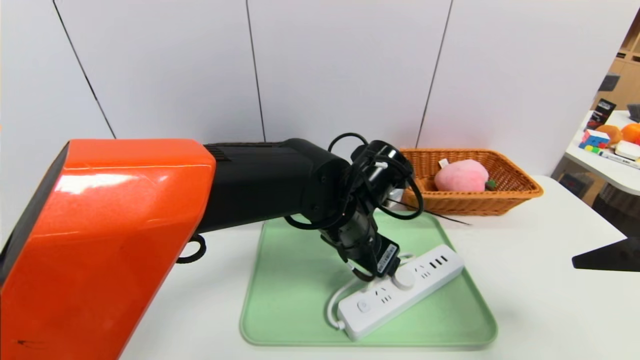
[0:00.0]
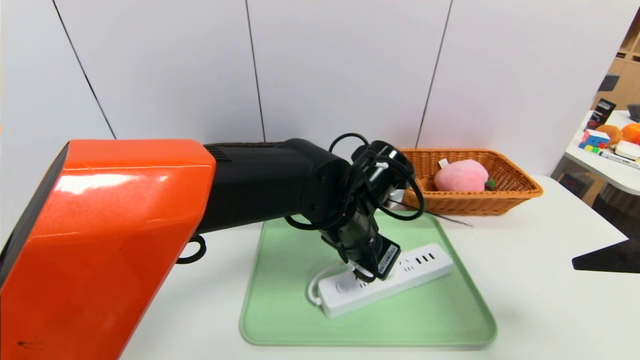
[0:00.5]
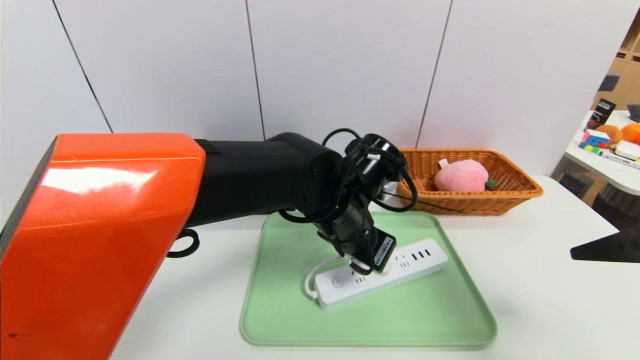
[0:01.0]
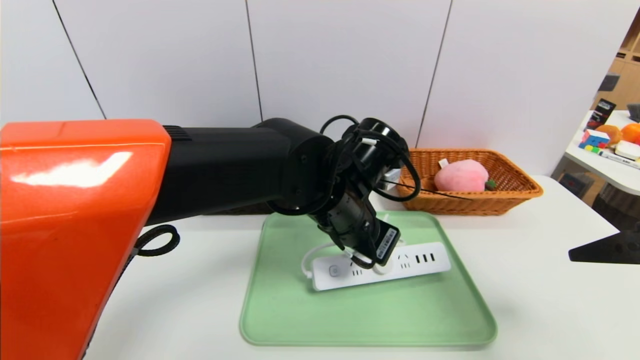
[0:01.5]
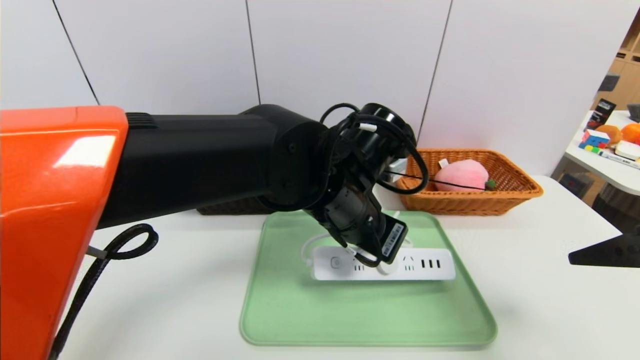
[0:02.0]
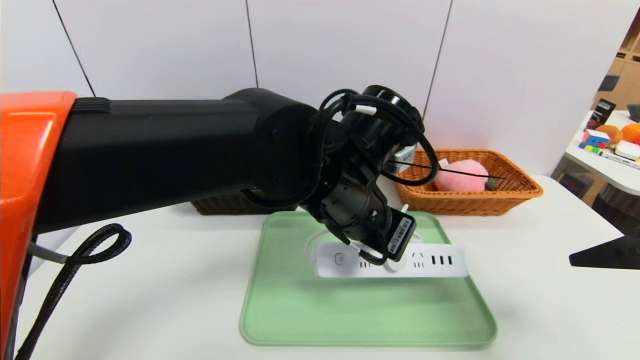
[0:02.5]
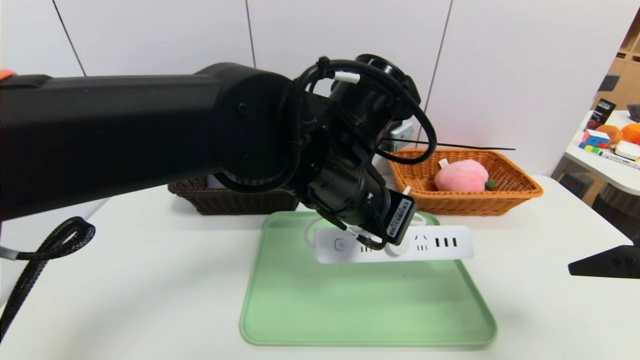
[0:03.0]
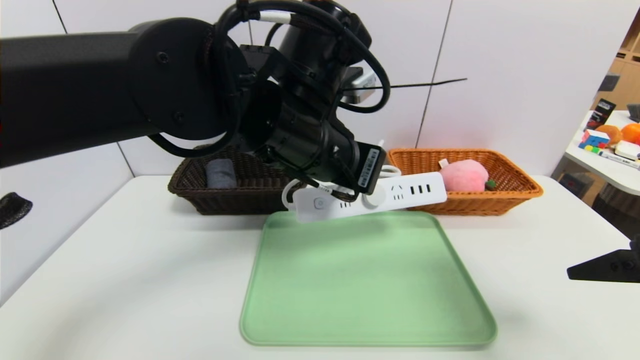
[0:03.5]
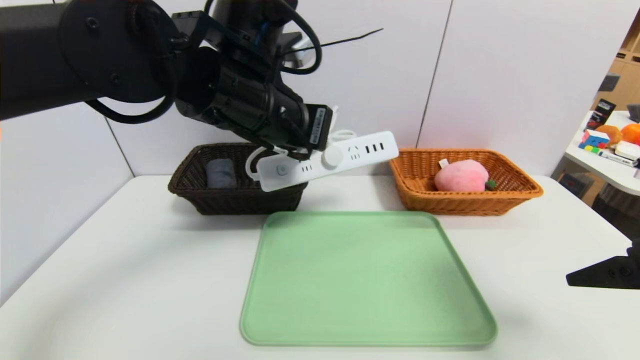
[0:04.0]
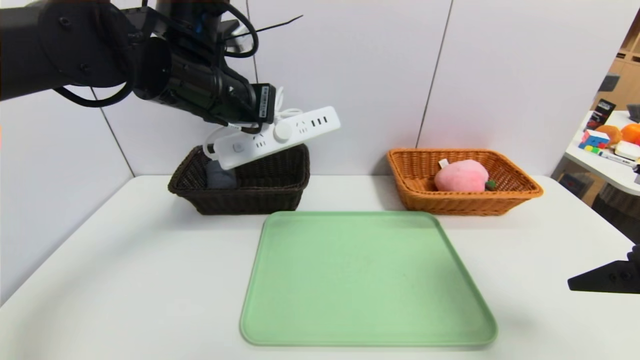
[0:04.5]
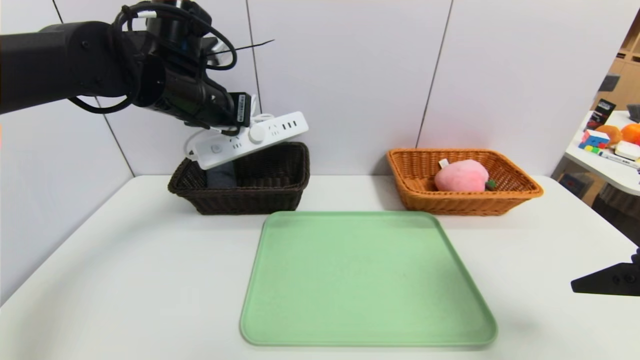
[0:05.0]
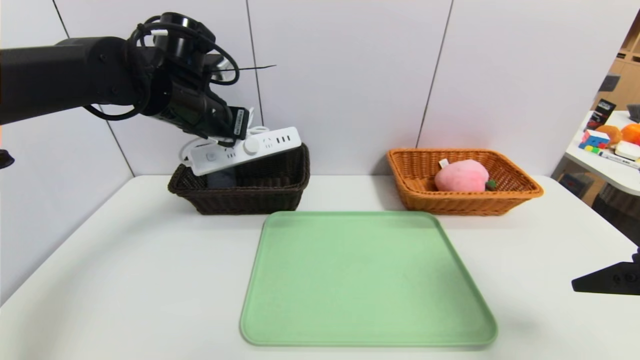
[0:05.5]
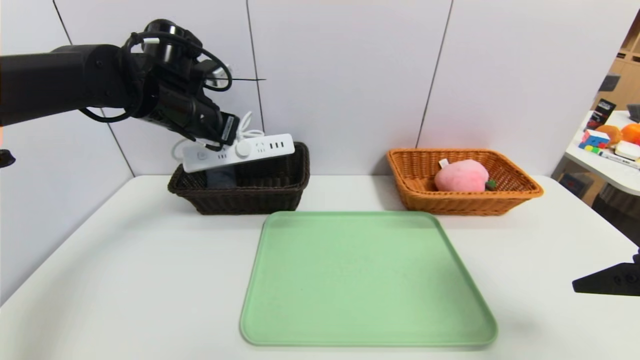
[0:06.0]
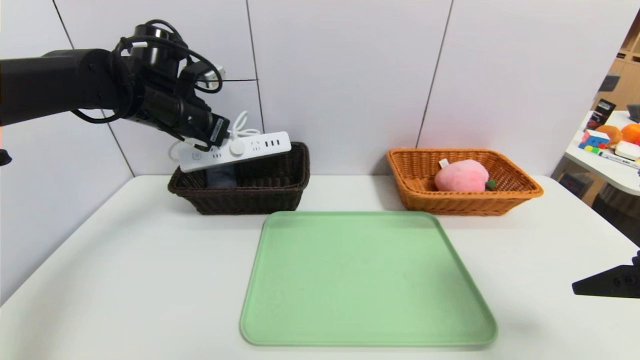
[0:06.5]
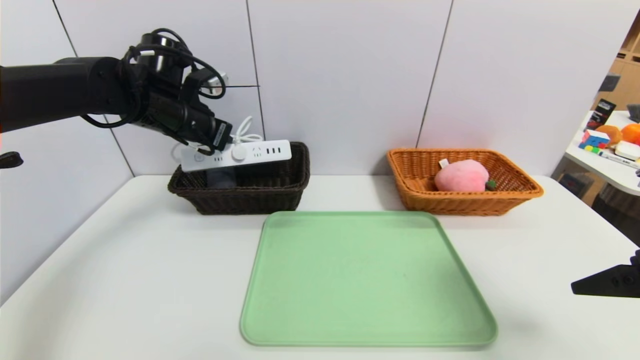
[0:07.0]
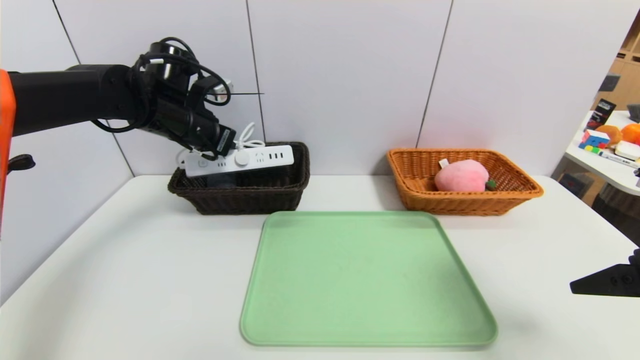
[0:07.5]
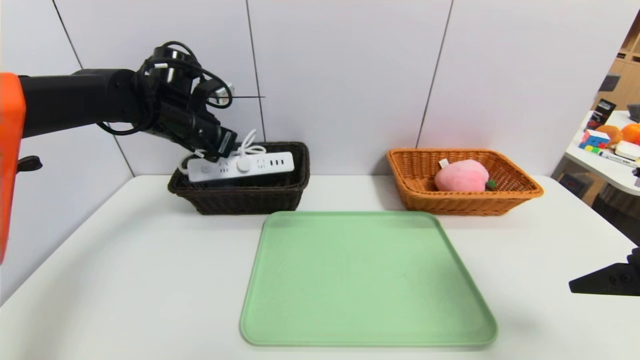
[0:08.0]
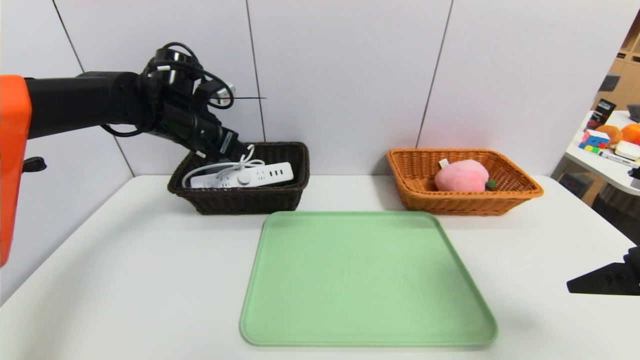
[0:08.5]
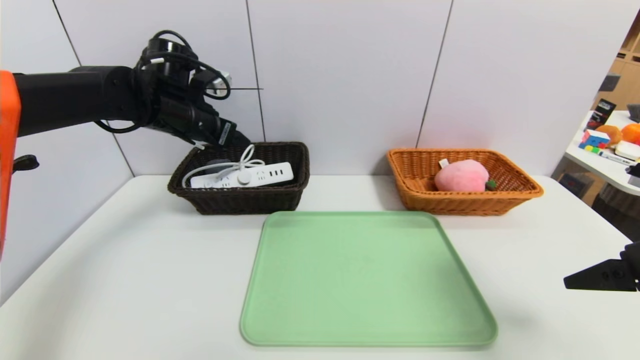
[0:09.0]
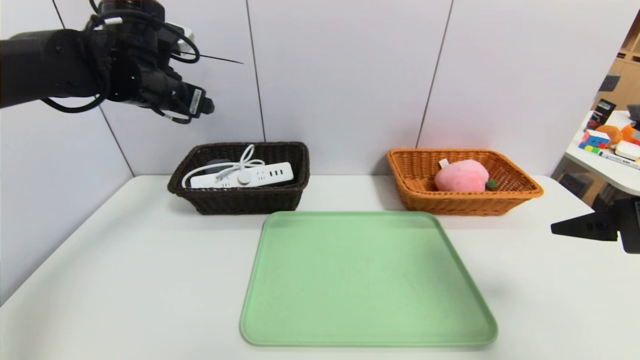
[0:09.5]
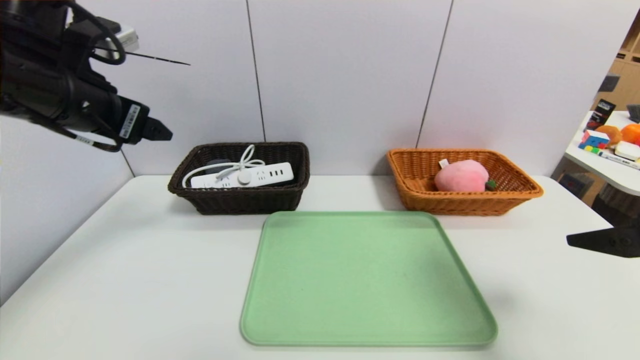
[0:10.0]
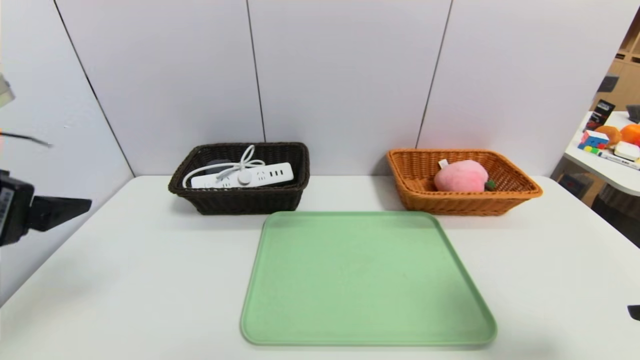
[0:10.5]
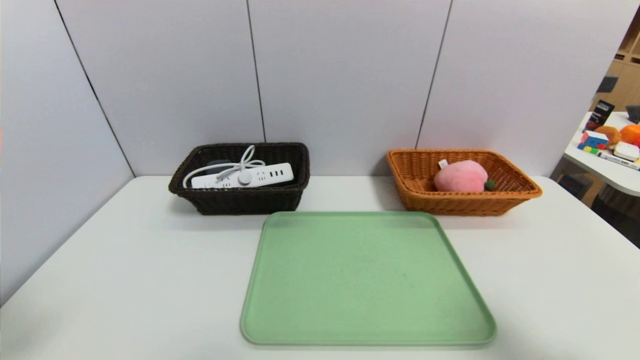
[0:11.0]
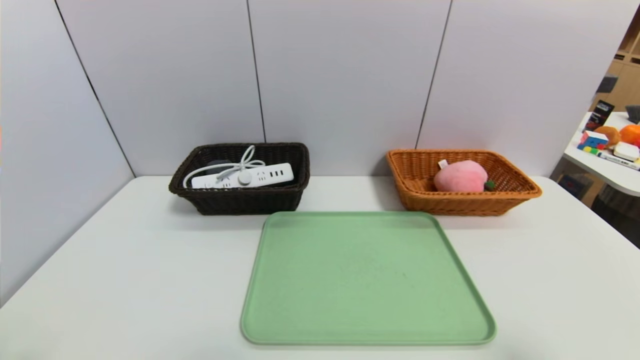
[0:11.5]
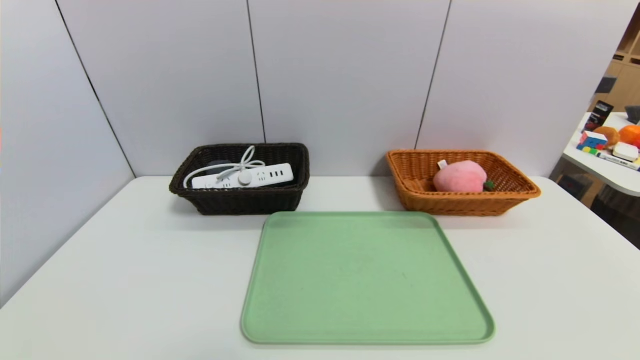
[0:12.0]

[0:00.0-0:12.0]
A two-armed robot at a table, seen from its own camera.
Task of the whole recording: place the food in the right basket with the right gripper, and place the non food items in the left basket with the left gripper.
Step, 0:00.0 to 0:08.5: Grasp the power strip and put it in the left basket.
0:00.0 to 0:02.0: The left gripper closes.
0:02.0 to 0:04.0: The left gripper shifts some 15 cm upward and to the left.
0:04.0 to 0:06.0: The left gripper travels to the left and forward by some 15 cm.
0:06.0 to 0:08.0: The grippers make only small movements.
0:08.0 to 0:10.0: The left gripper is displaced backward and upward by roughly 20 cm, and opens its fingers.
0:10.0 to 0:12.0: The right gripper travels backward by some 20 cm. The left gripper shifts roughly 35 cm backward and downward.

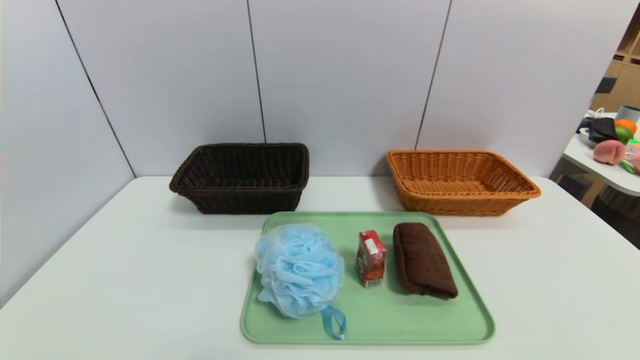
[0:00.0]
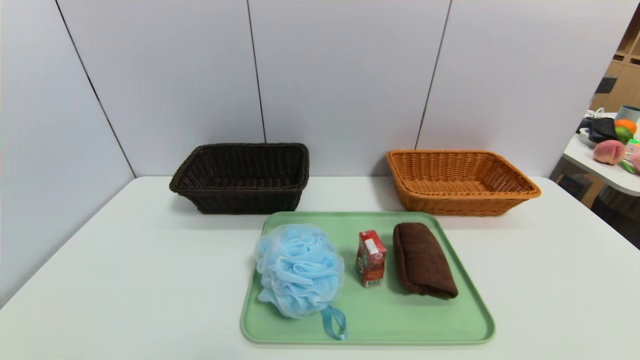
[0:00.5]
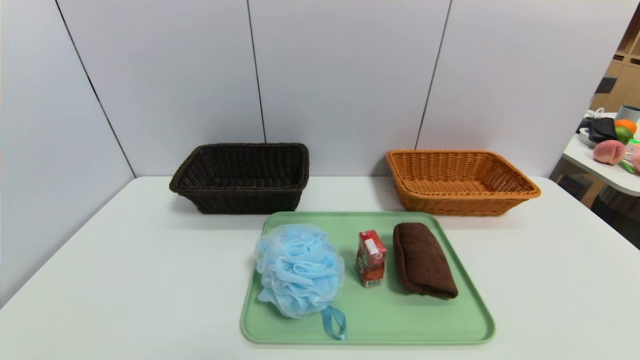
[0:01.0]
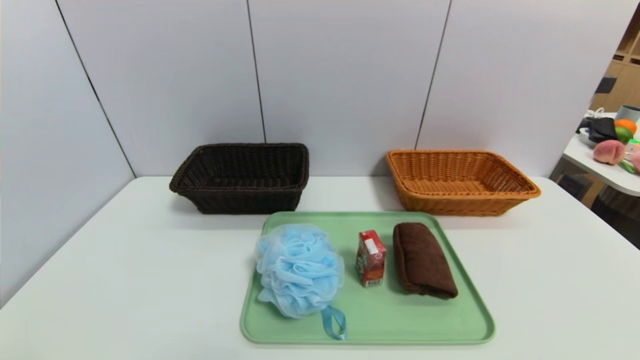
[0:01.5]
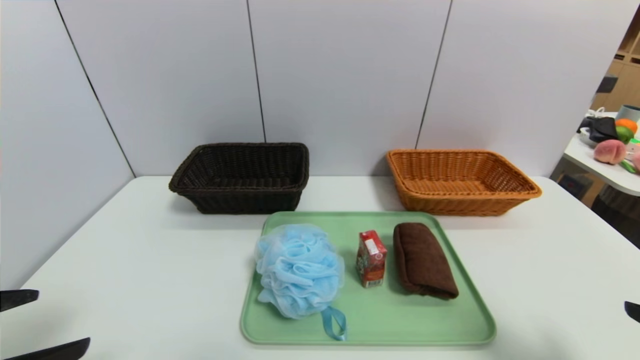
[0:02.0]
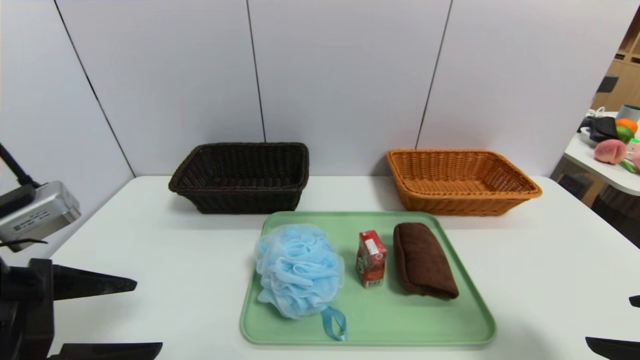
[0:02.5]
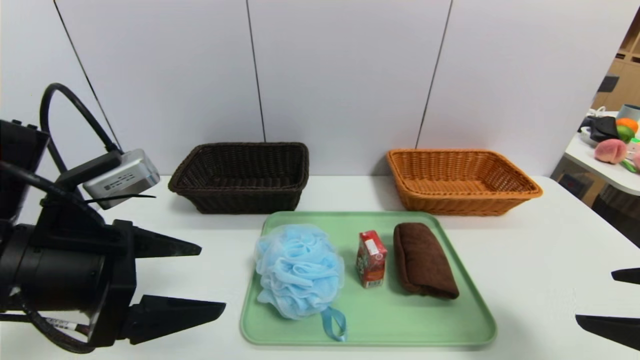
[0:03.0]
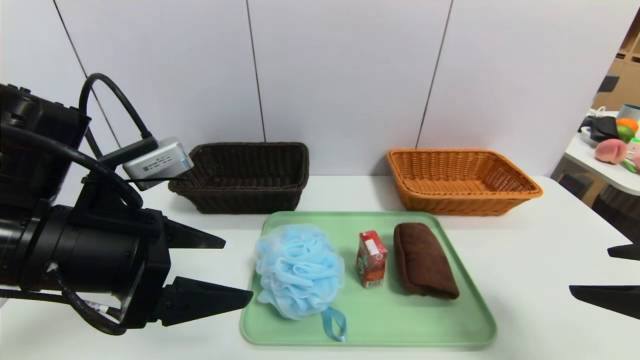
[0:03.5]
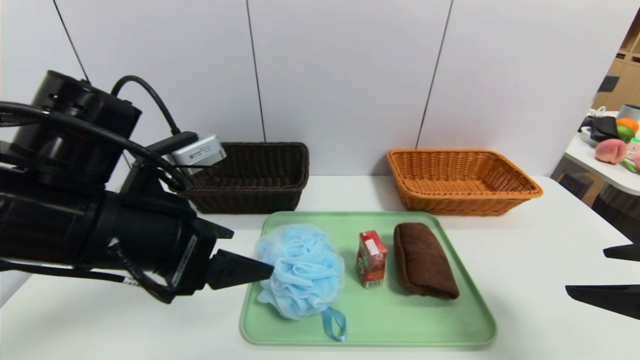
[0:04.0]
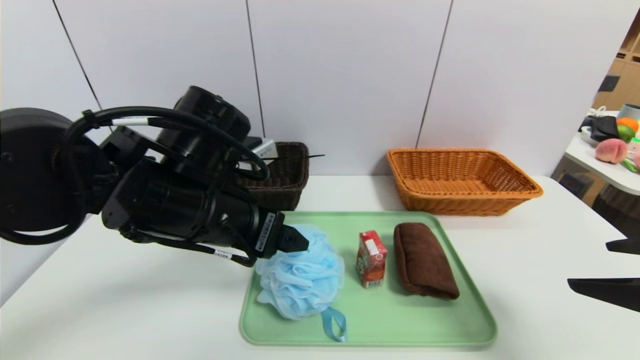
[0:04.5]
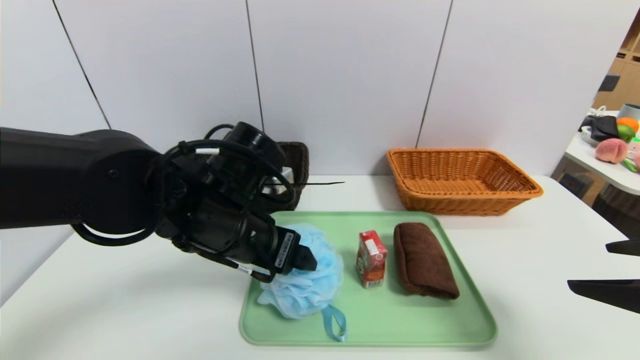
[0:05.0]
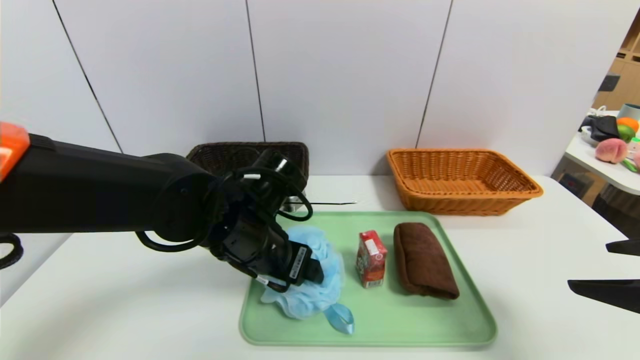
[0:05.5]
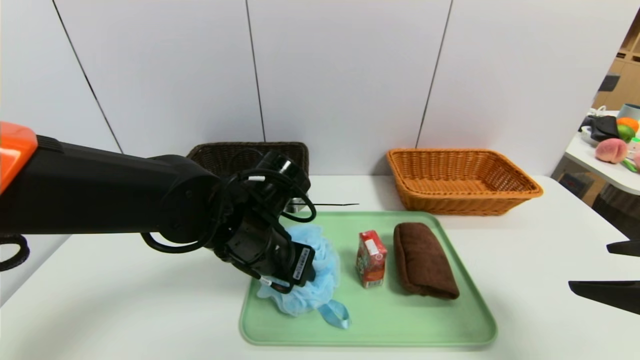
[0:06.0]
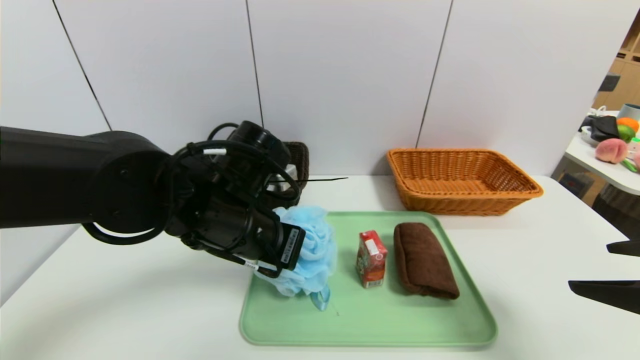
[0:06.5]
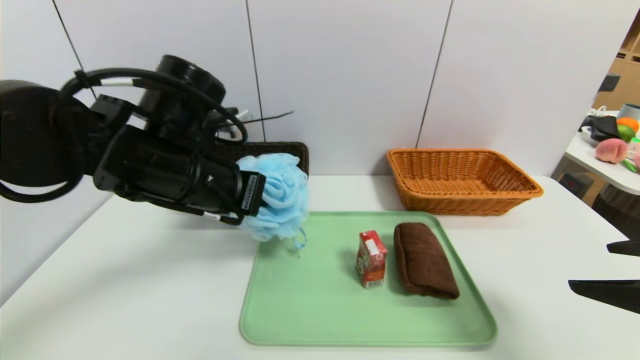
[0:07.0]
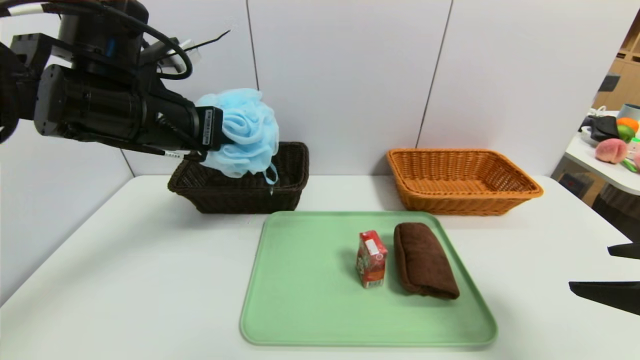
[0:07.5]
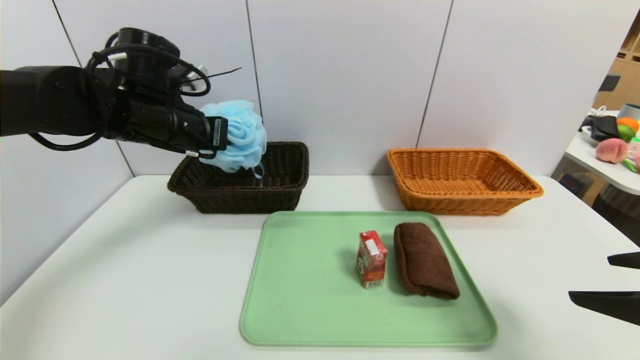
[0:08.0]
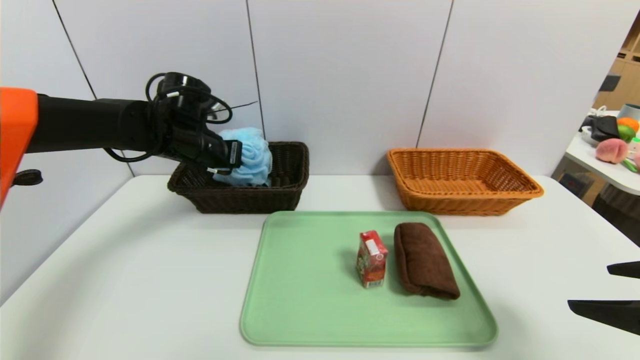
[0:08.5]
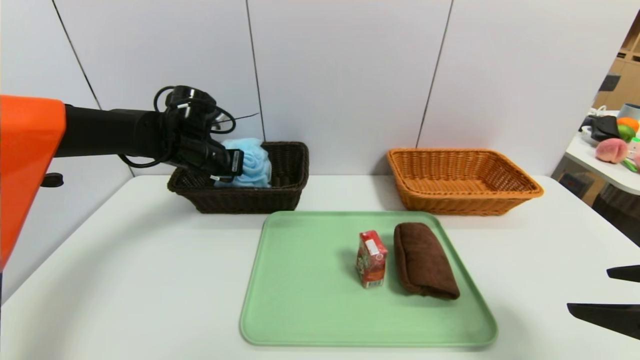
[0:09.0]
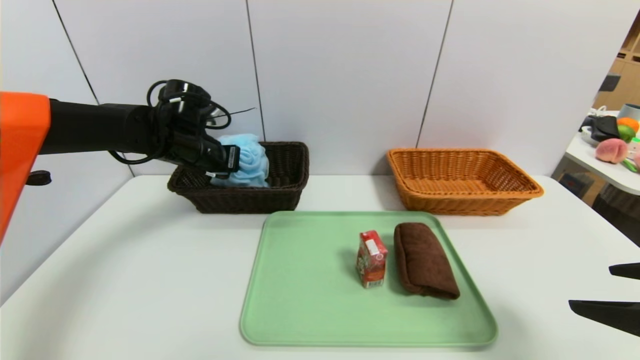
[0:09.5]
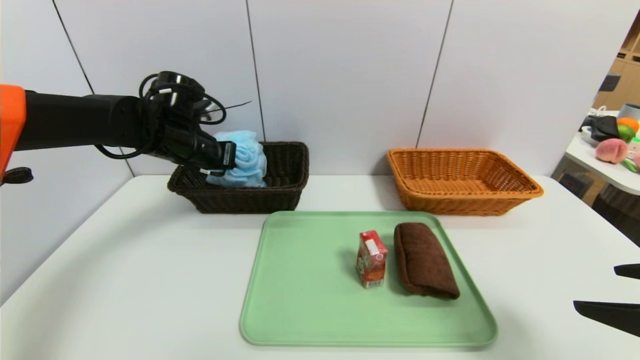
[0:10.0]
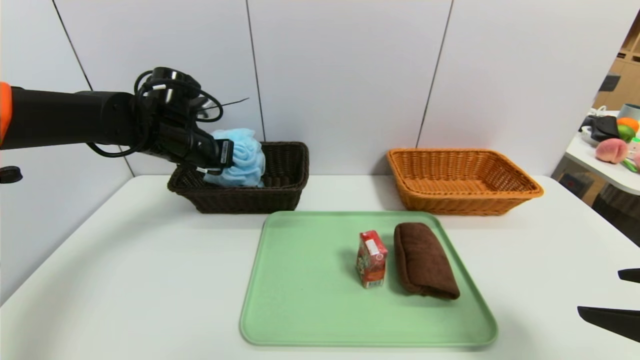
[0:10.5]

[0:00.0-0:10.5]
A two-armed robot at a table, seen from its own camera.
Task of the whole recording: place the food in the right basket with the right gripper, and place the non food items in the left basket with the left gripper.
0:00.0 to 0:02.0: The grippers both shift upward and forward by roughly 20 cm.
0:02.0 to 0:04.0: The left gripper heads forward and to the right, covering approximately 15 cm, while the right gripper goes roughly 5 cm forward.
0:04.0 to 0:06.5: The left gripper is displaced to the right and forward by some 10 cm, and closes up.
0:06.5 to 0:08.5: The left gripper is displaced forward and to the left by roughly 20 cm.
0:08.5 to 0:10.5: There are only small adjustments of the grippers.
